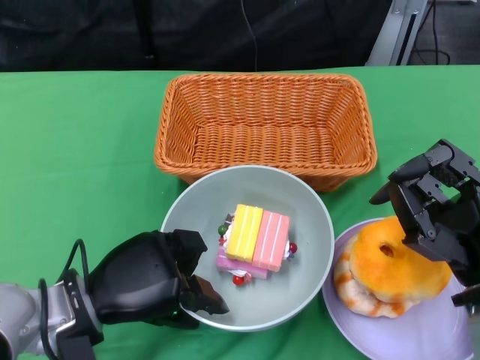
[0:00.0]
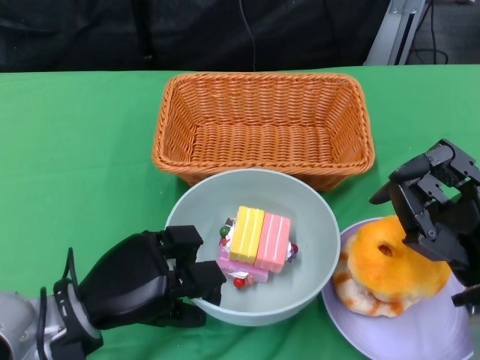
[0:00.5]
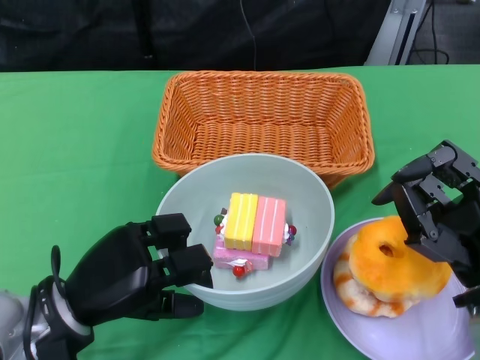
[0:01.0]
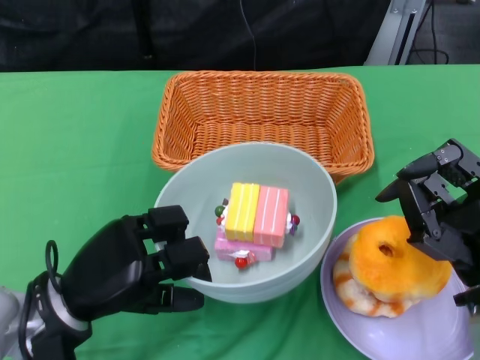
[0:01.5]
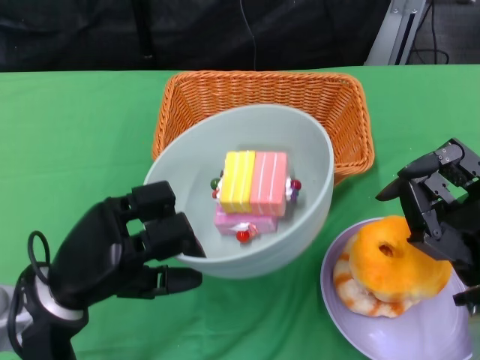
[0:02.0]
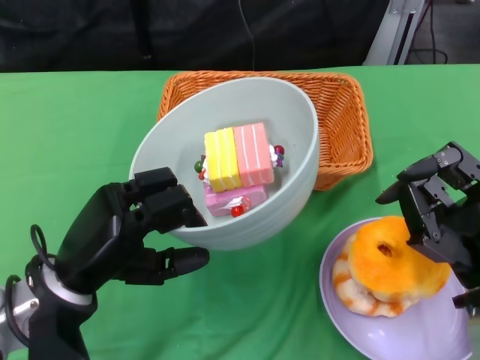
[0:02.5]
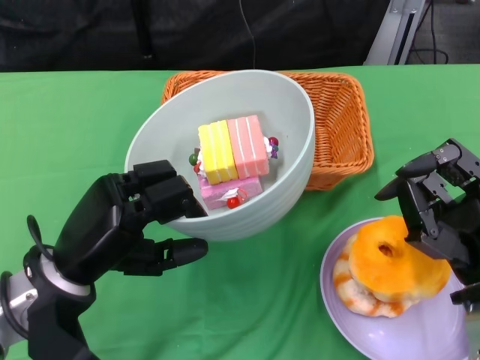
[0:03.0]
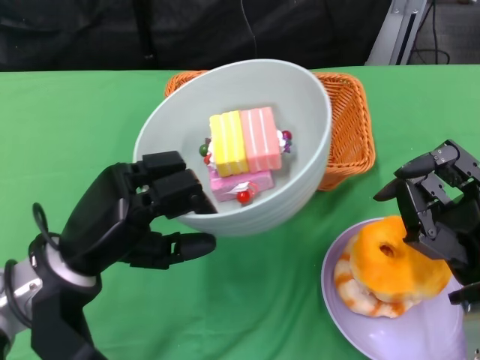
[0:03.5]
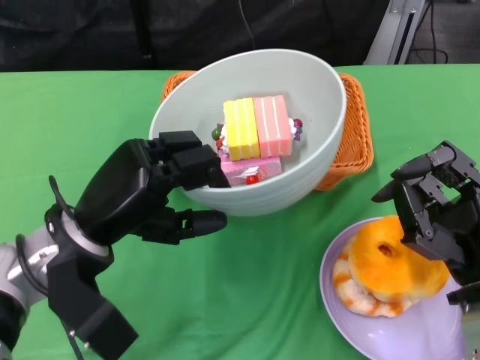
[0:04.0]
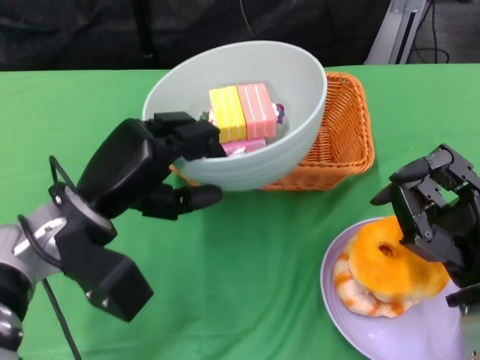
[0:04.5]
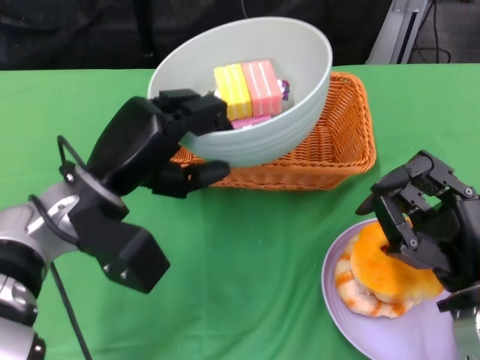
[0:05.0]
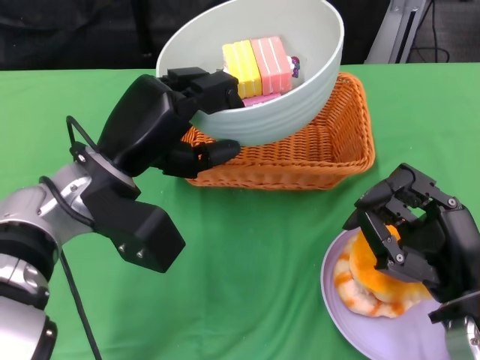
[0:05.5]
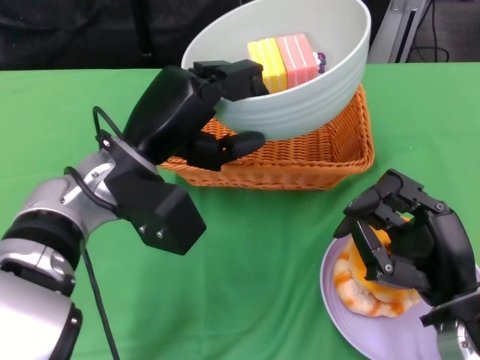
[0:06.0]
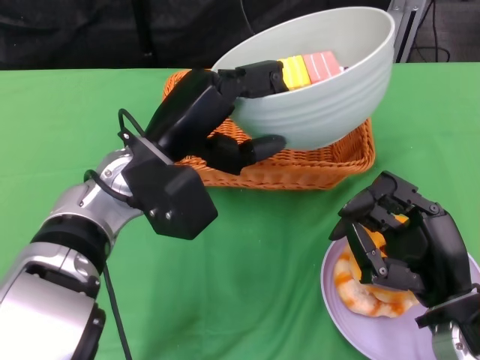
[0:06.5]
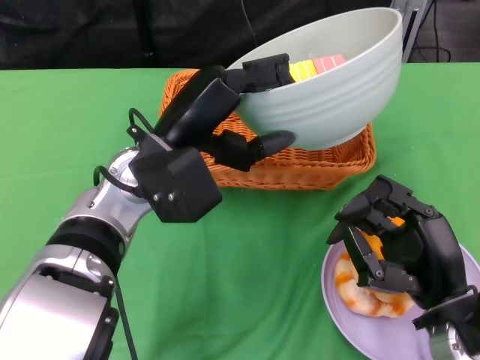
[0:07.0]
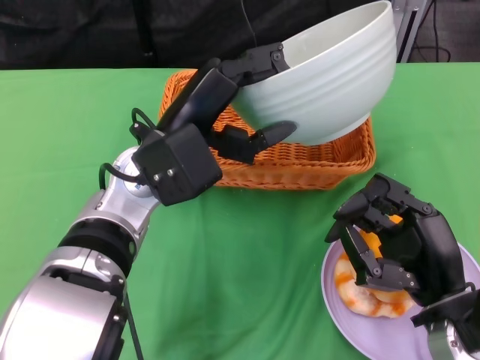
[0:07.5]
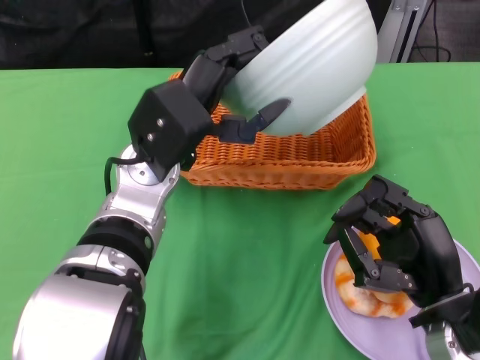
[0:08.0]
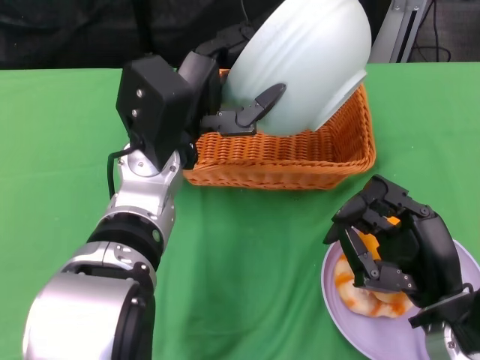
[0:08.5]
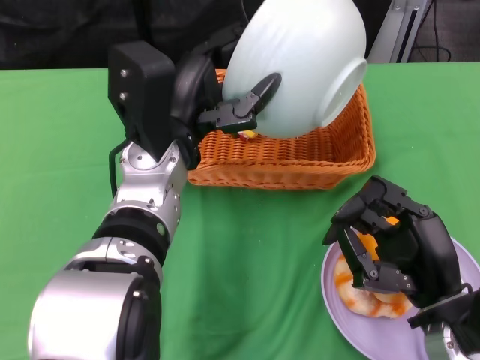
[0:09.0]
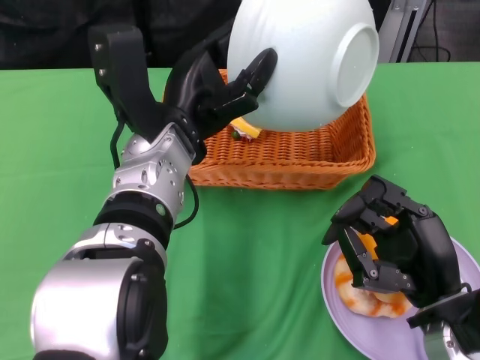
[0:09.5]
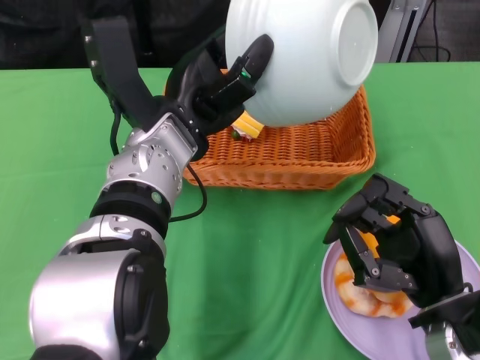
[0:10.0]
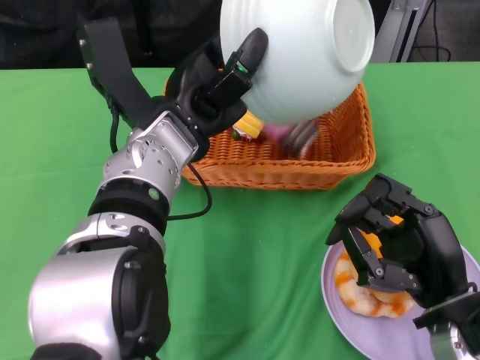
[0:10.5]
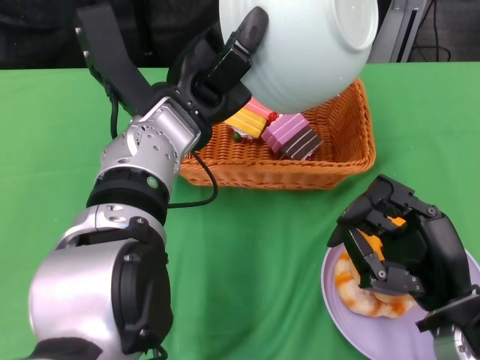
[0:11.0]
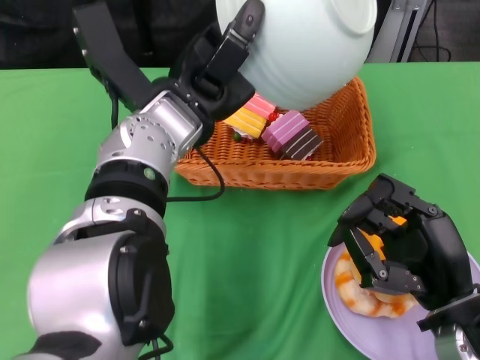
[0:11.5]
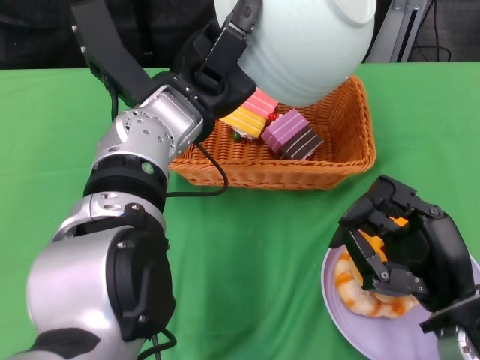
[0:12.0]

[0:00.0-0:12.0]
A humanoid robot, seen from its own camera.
0:02.0 to 0:04.0: The left hand changes place by about 5 cm.
0:04.0 to 0:06.0: The left hand ends up approximately 10 cm from where it was.

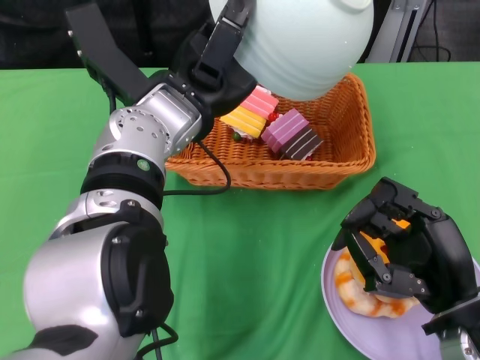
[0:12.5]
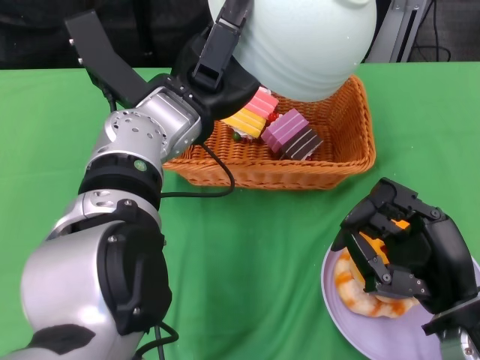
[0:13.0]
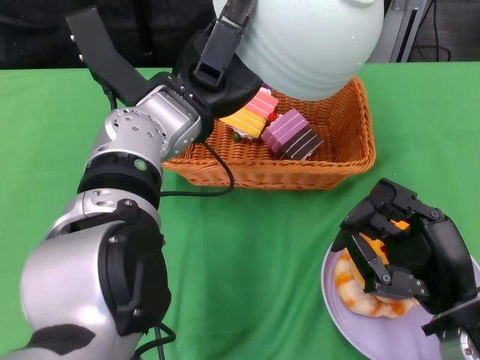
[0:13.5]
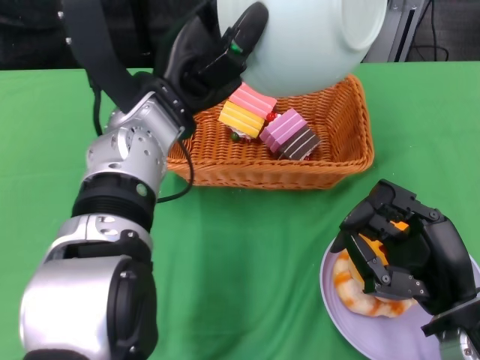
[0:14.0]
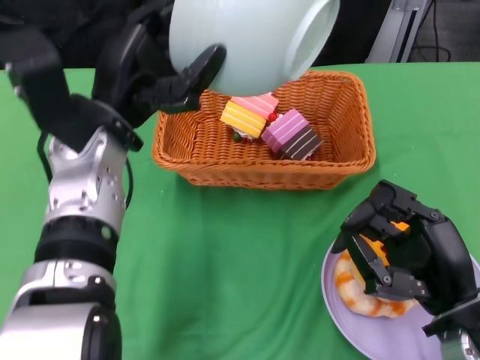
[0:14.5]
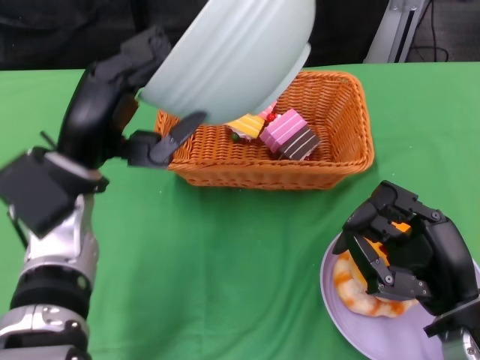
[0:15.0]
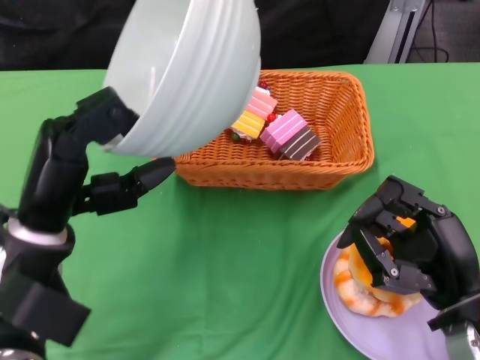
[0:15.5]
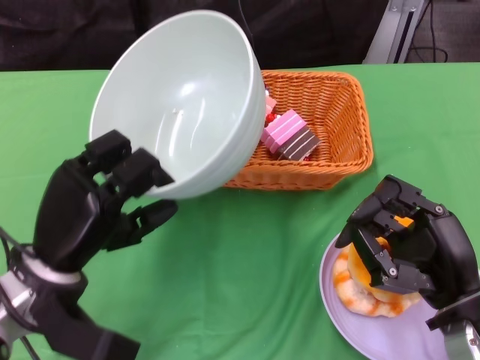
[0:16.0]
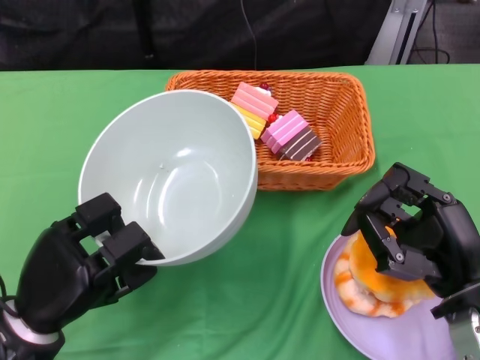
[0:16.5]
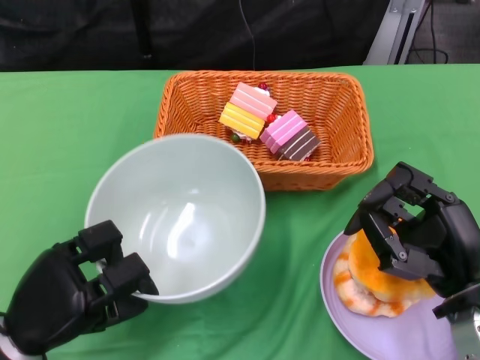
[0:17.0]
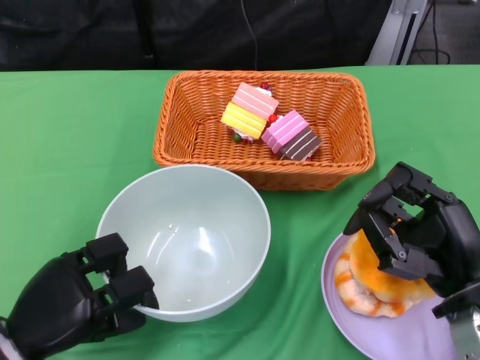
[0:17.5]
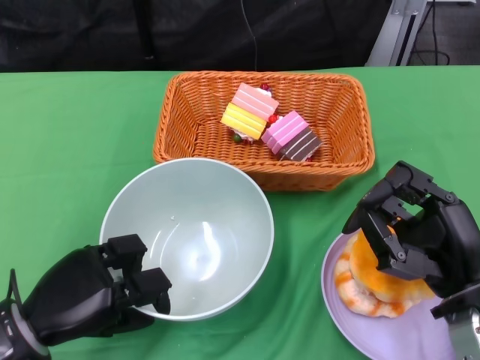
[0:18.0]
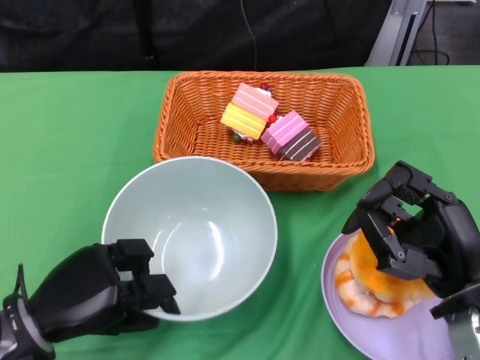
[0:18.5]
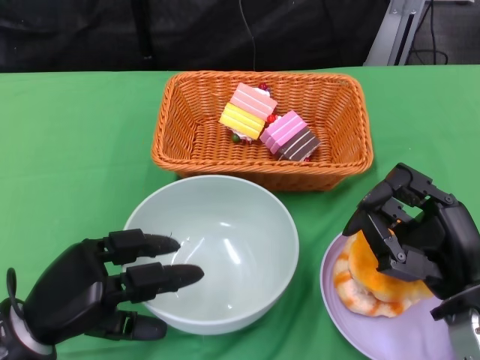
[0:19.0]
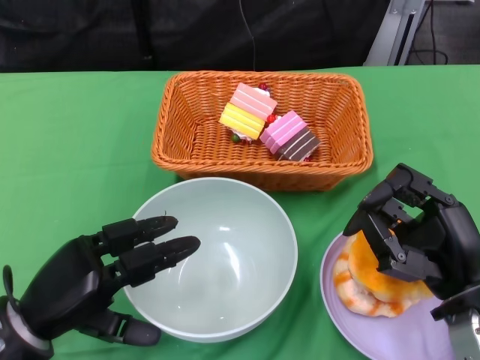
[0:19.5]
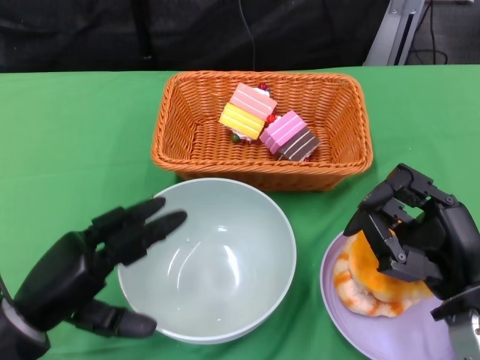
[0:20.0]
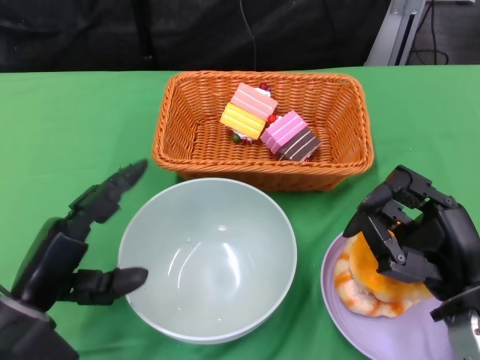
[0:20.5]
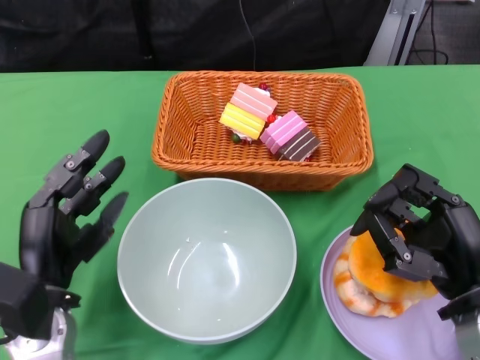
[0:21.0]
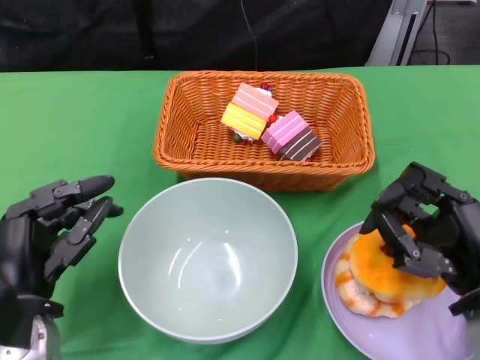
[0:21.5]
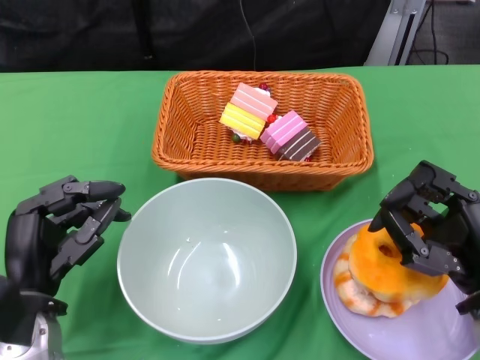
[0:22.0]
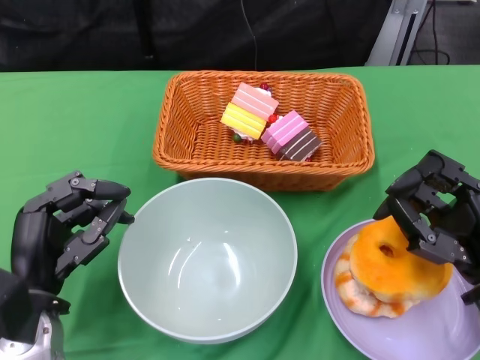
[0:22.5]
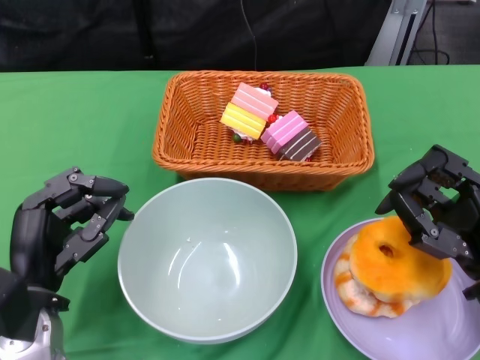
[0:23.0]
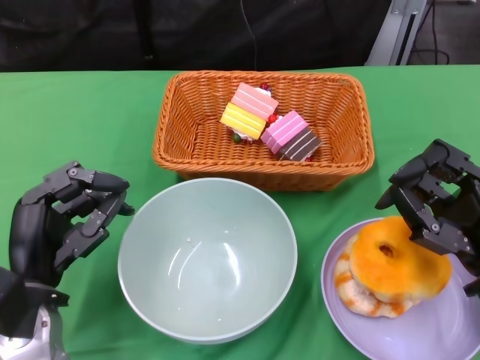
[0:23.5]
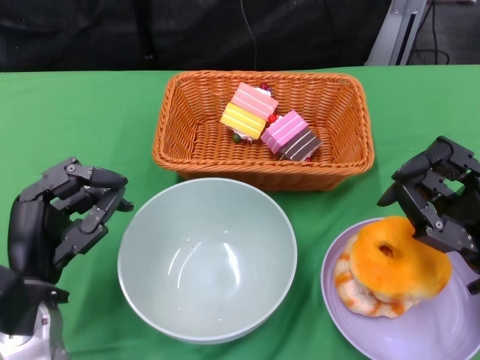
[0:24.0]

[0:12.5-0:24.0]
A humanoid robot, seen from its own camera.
Step, 0:14.5 to 0:19.0: Place the bowl on the table with the left gripper.
0:12.5 to 0:14.5: The left hand goes about 5 cm to the left.
0:14.5 to 0:16.5: The left hand heads downward, backward and to the left, covering about 20 cm.
0:22.0 to 0:24.0: There are only small adjustments of the hands.
